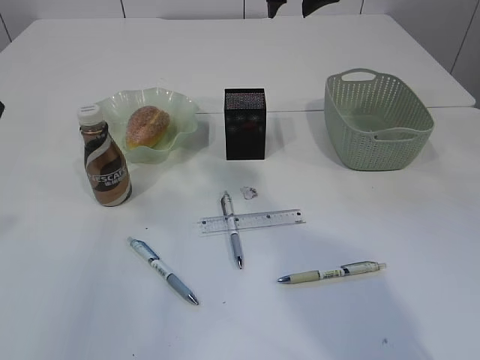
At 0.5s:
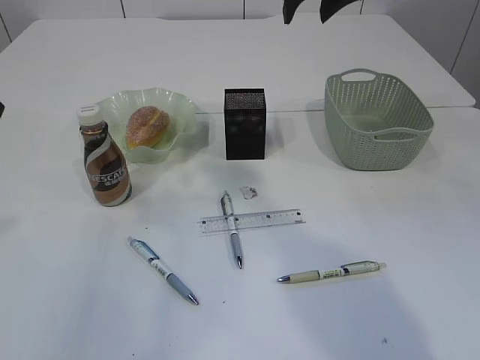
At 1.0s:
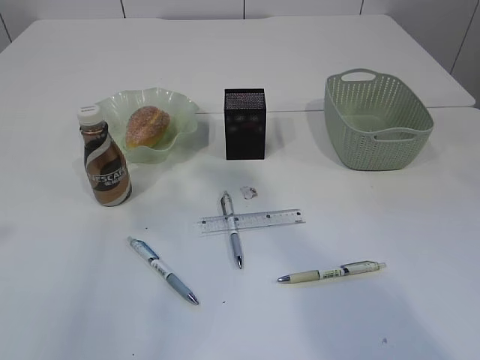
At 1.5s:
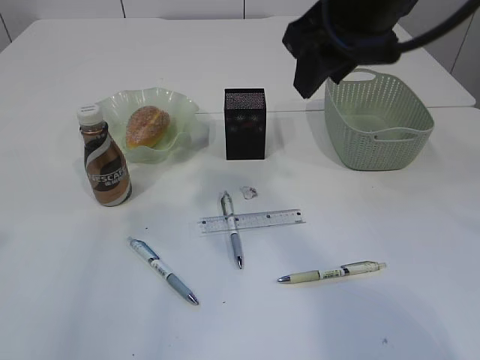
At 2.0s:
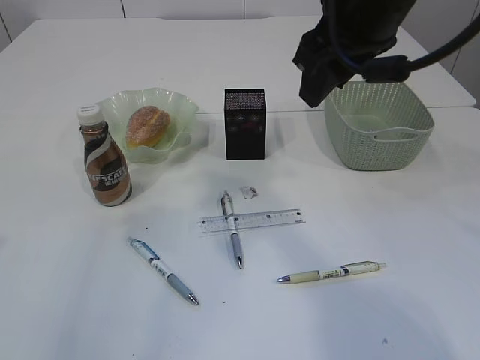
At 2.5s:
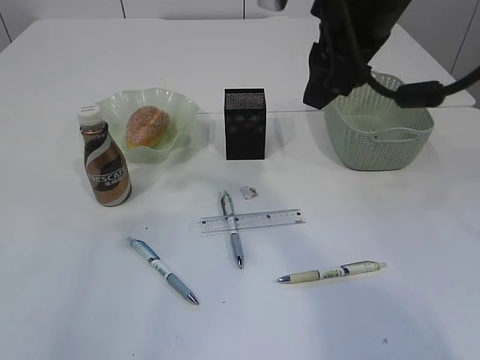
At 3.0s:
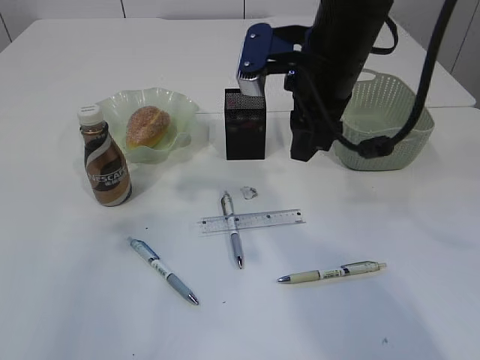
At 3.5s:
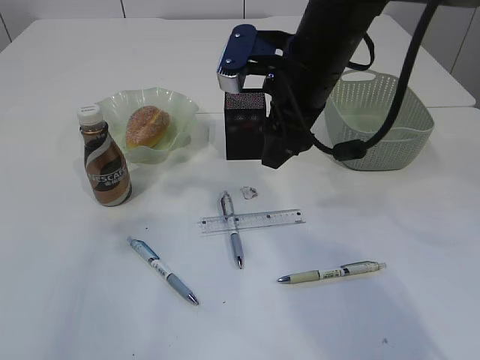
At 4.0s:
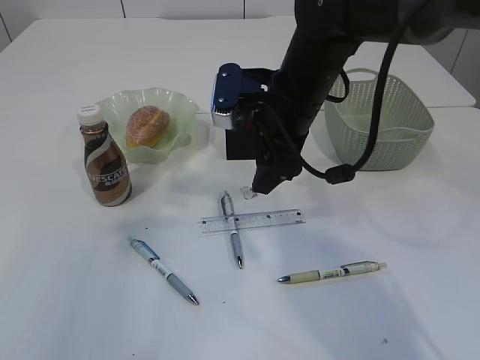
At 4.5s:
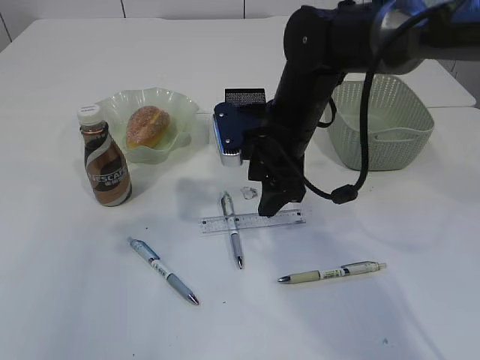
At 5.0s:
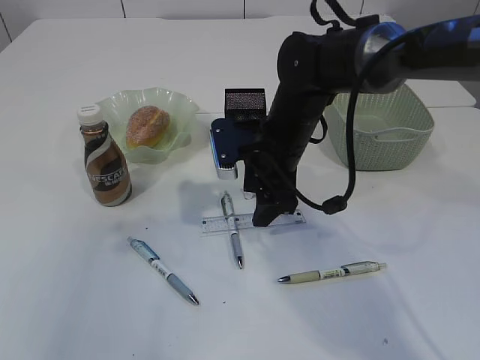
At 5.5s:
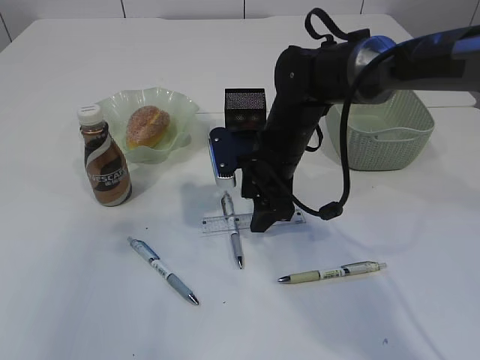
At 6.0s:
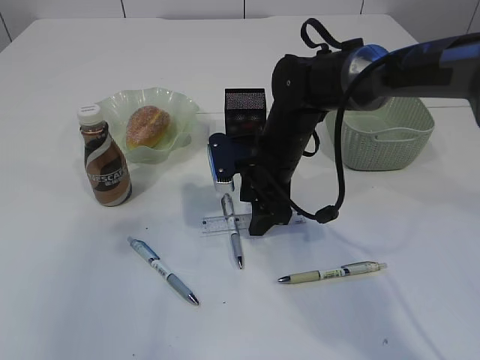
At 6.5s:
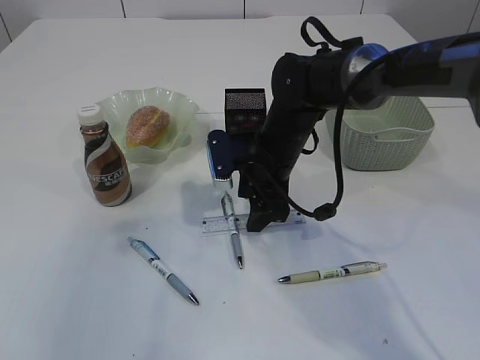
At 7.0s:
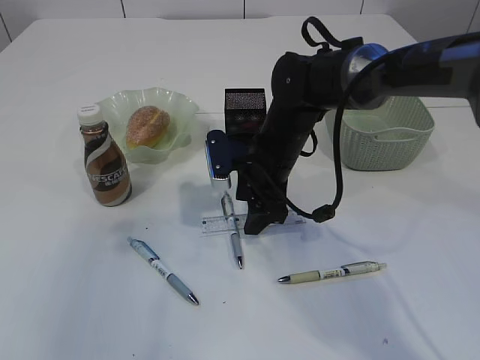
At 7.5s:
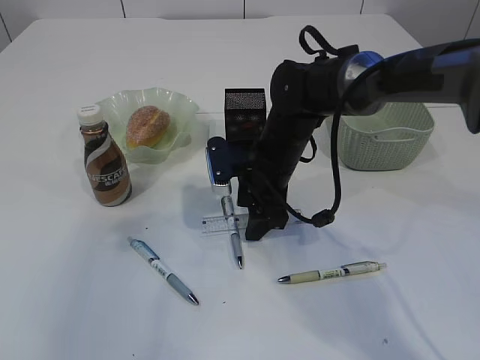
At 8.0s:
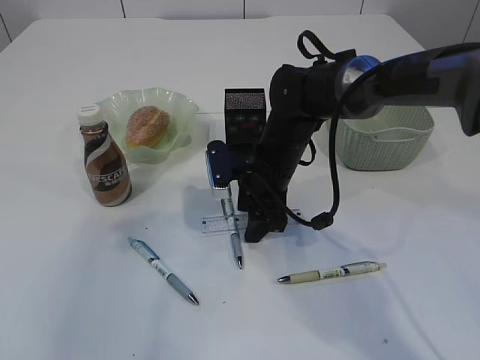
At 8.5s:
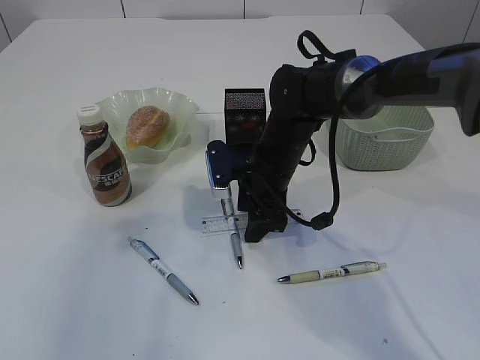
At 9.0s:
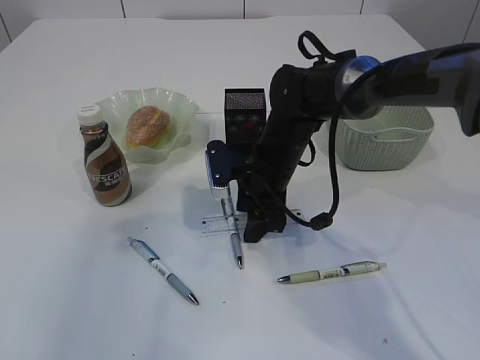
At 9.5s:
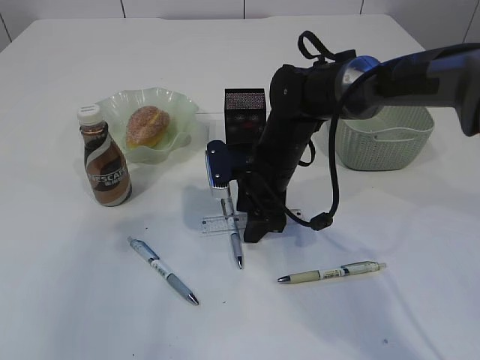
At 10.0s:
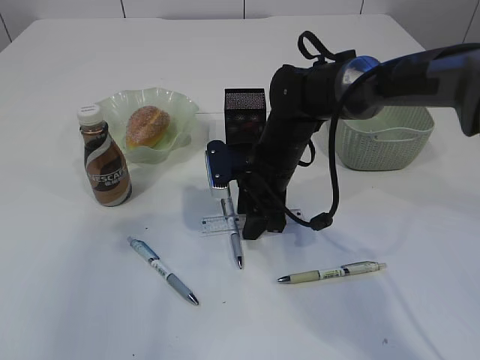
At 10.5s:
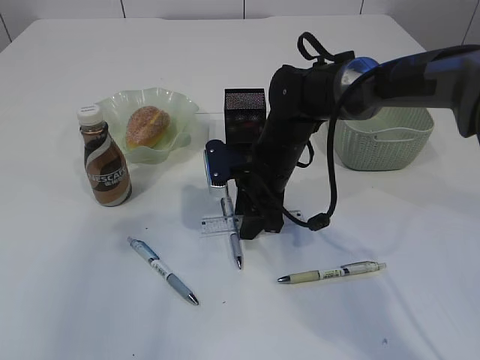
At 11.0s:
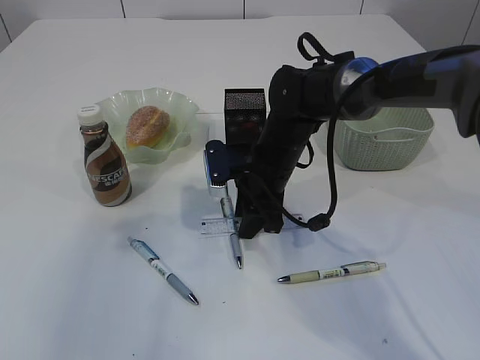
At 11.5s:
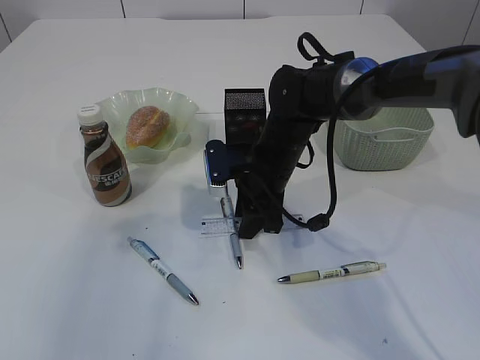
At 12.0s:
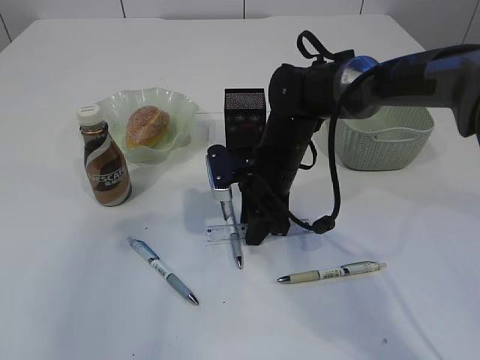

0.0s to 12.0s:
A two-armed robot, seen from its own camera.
0.0s to 2.0s: The right gripper goes some 10 cm backward.
2.0s to 4.0s: The right gripper is displaced downward and forward by roughly 15 cm.
4.0s to 6.0s: The right gripper goes some 10 cm downward.
6.0s to 10.0s: Both grippers stay put.
10.0s to 12.0s: Both grippers stay put.

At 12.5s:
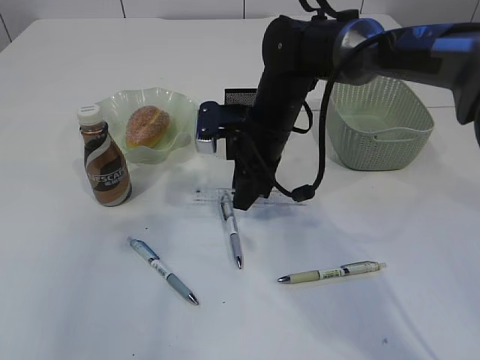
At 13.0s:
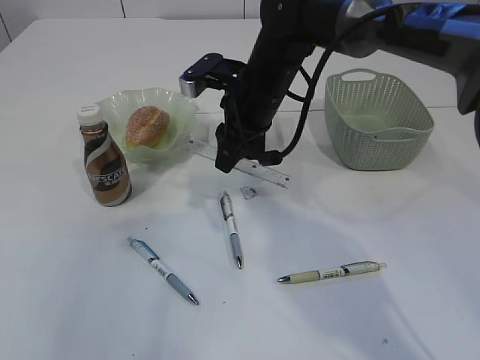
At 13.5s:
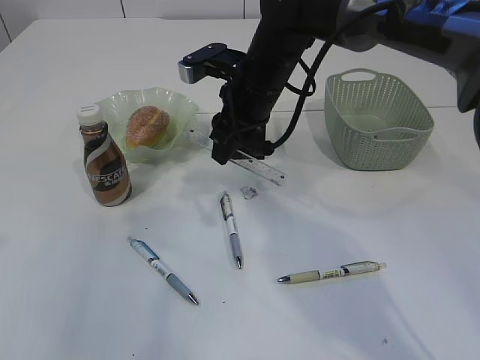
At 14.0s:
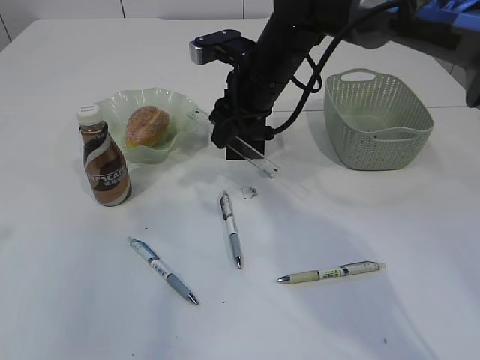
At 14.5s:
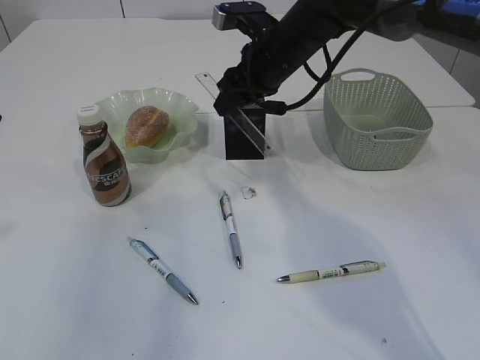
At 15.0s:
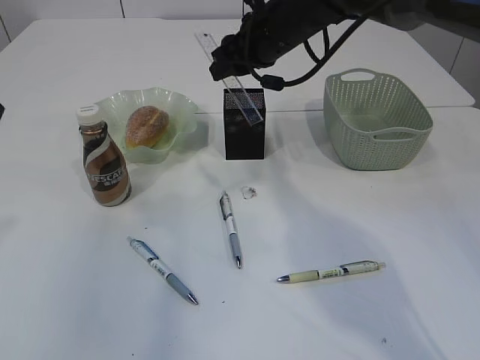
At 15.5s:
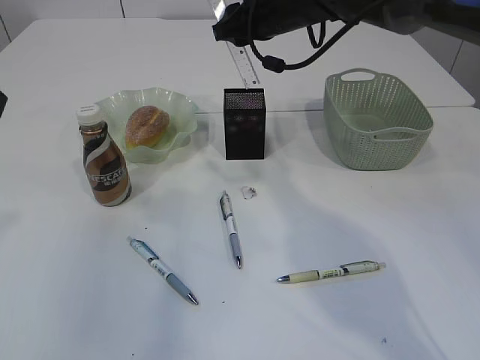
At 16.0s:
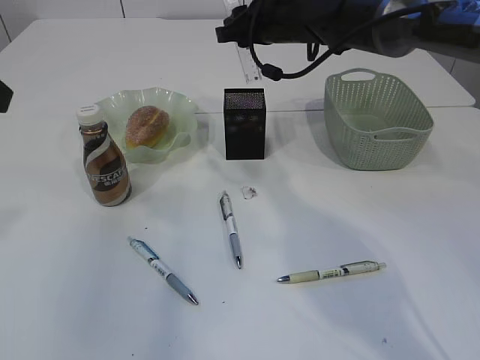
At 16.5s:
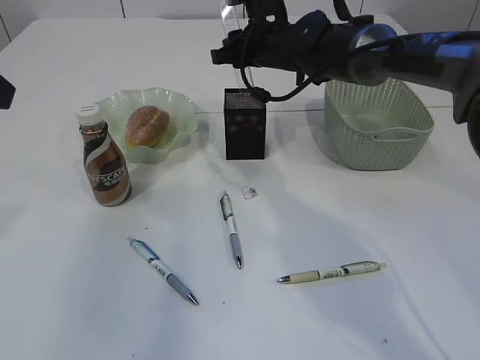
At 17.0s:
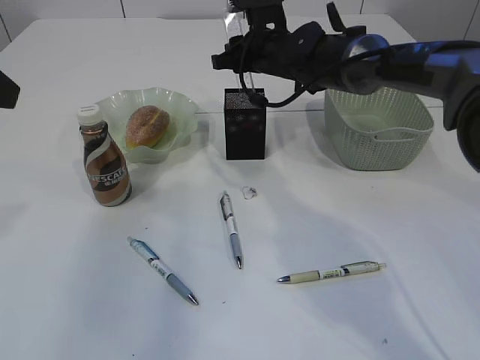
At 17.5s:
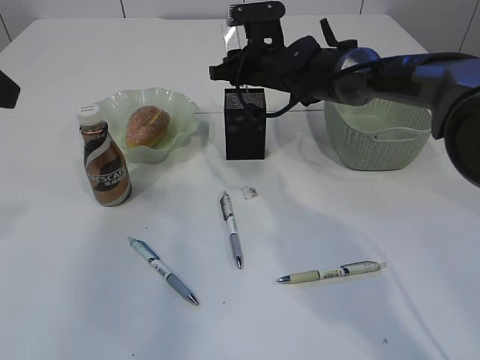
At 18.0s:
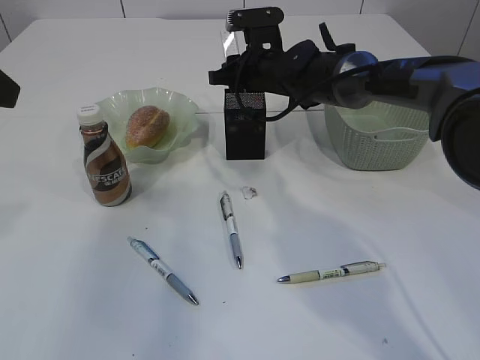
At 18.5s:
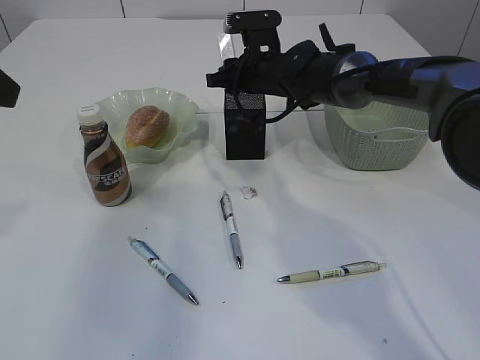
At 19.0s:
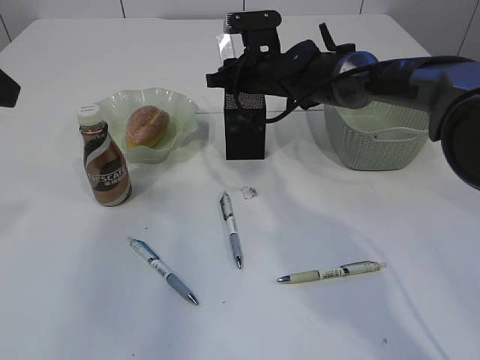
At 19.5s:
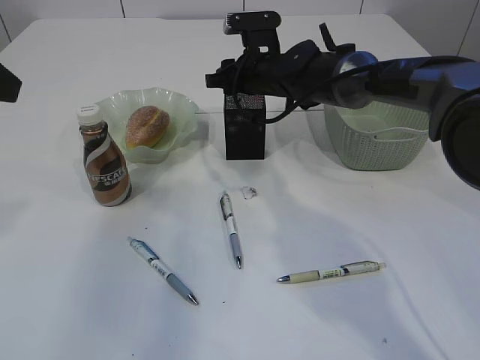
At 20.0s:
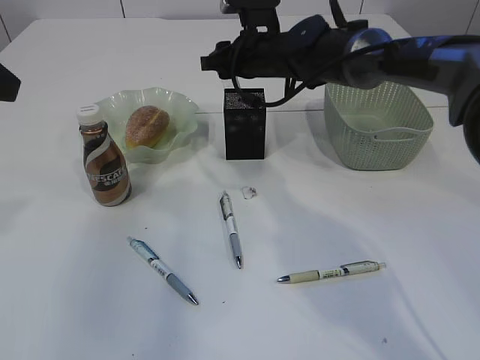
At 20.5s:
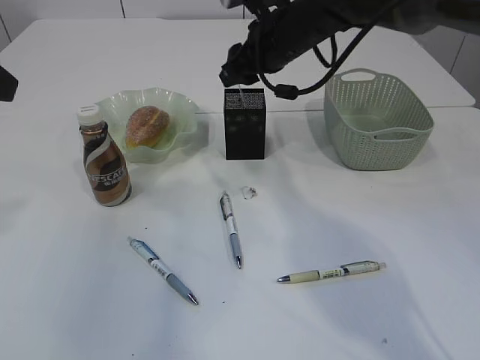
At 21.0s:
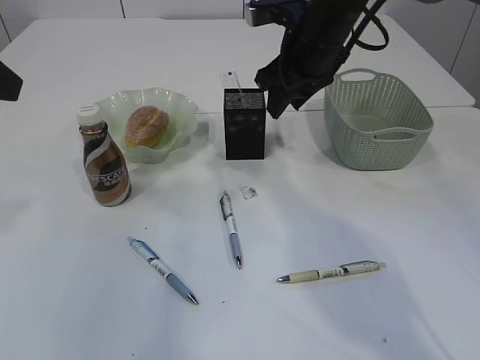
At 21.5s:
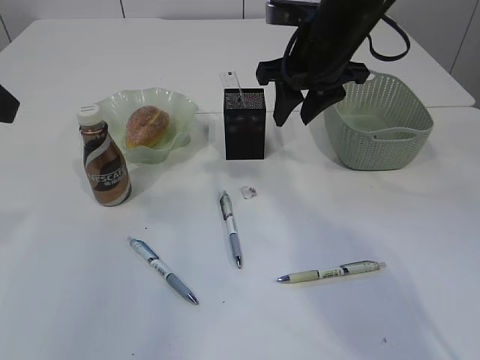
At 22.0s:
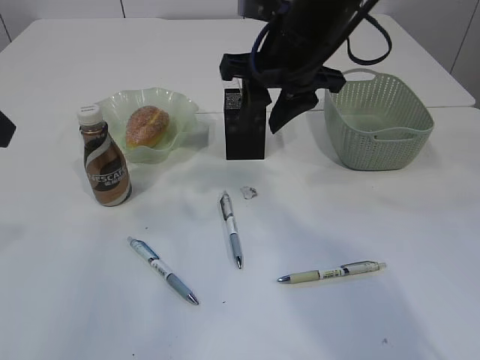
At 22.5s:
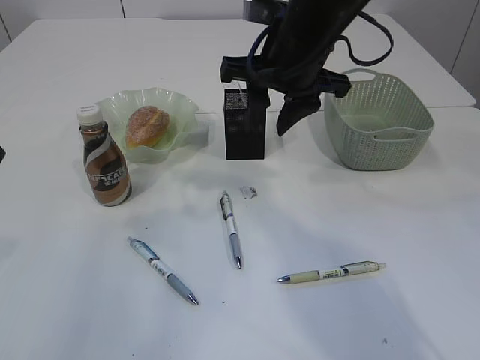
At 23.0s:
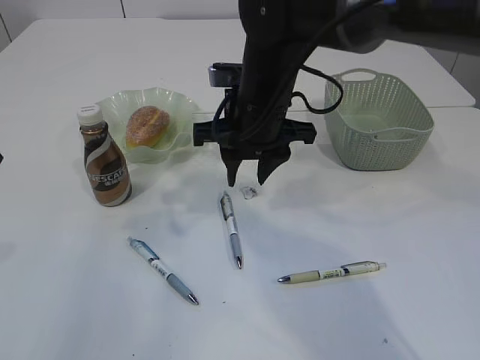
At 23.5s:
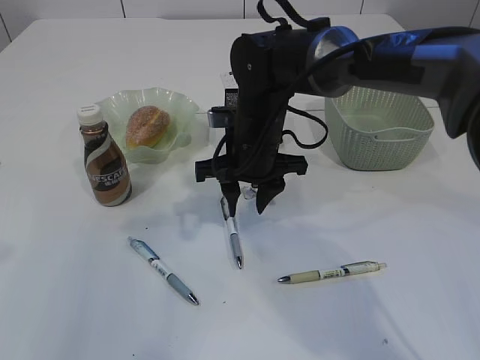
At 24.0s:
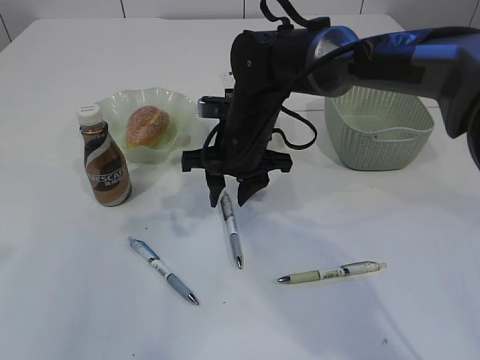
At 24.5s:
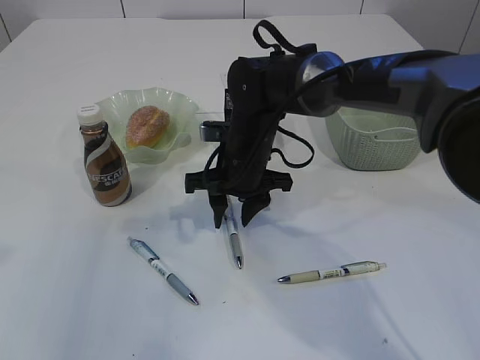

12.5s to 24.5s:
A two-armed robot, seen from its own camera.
Step, 13.0s to 20.0s: Place the ruler into the pen holder.
12.5s to 14.5s: The right gripper moves upward and forward, about 10 cm.
14.5s to 16.5s: The right gripper heads forward, covering roughly 5 cm.
16.5s to 18.5s: There are only small adjustments of the grippers.
18.5s to 20.5s: The right gripper shifts roughly 5 cm upward.
20.5s to 22.5s: The right gripper shifts about 10 cm backward.
22.5s to 24.5s: The right gripper travels downward by about 15 cm.

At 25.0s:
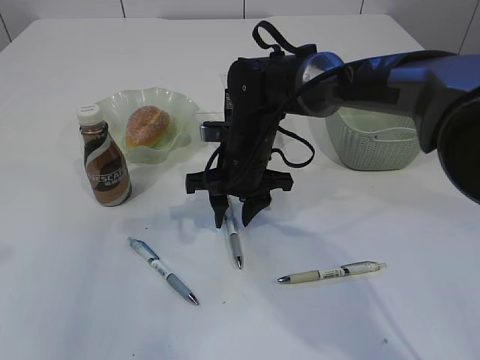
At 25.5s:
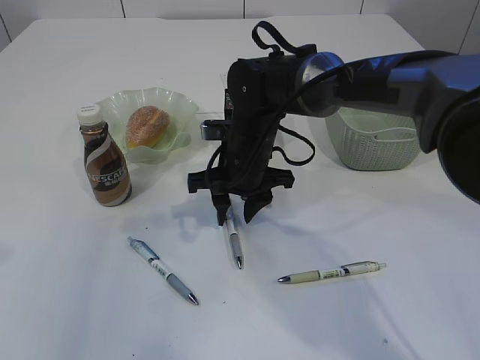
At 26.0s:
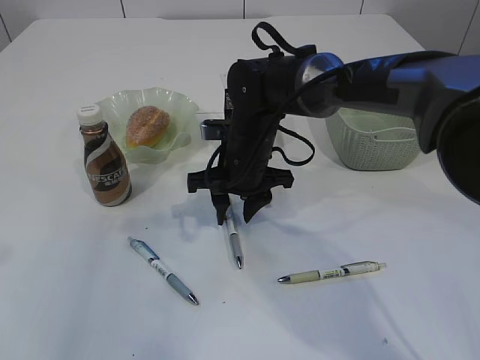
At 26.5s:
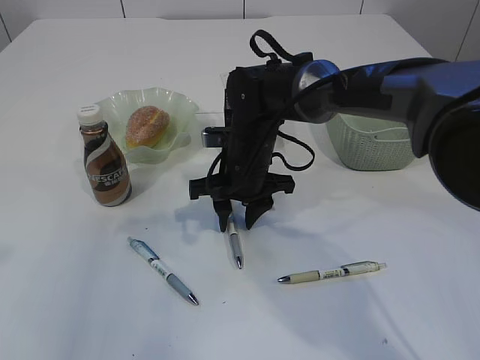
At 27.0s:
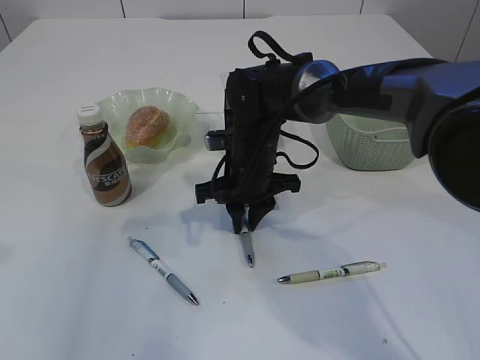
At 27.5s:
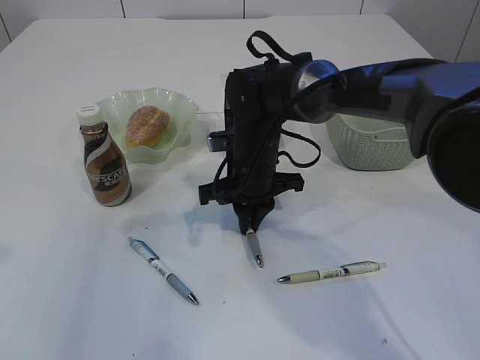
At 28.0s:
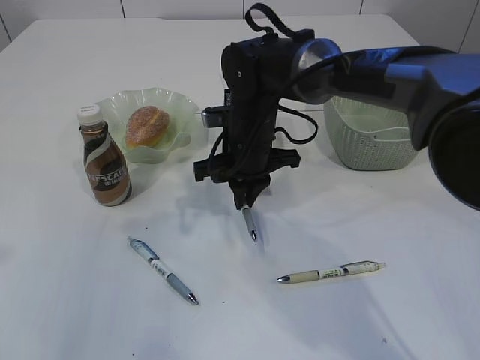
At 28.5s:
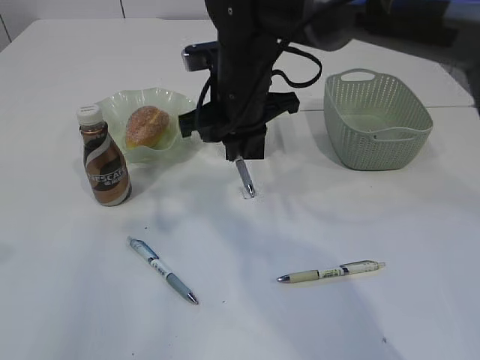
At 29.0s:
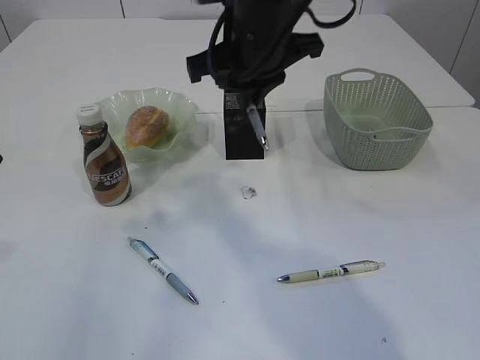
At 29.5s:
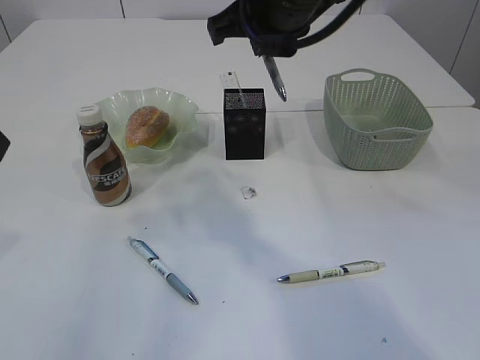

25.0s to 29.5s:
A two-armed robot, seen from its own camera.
Step, 25.0s to 28.5s: Pick up the pen with right arm.
25.0s to 27.0s: The grippers stay close to where they were, moving slightly.
27.0s to 29.5s: The right gripper travels upward by some 20 cm.
